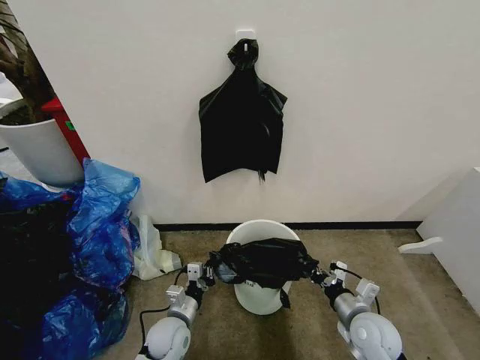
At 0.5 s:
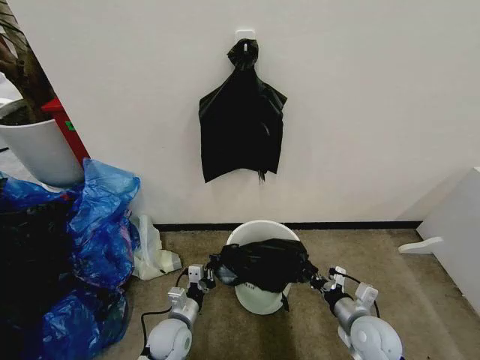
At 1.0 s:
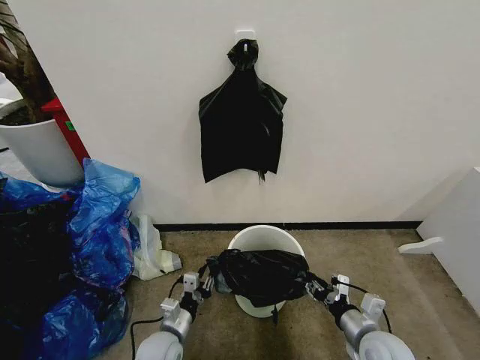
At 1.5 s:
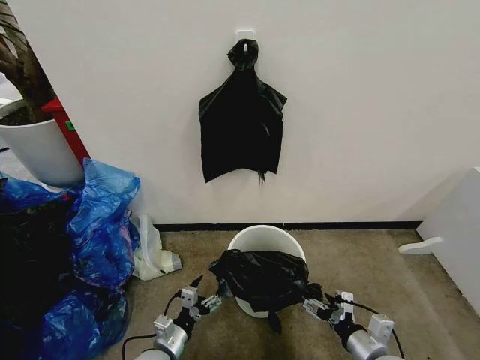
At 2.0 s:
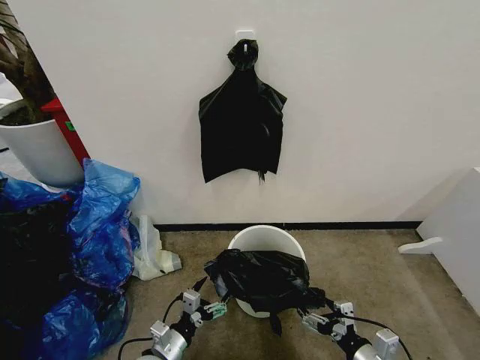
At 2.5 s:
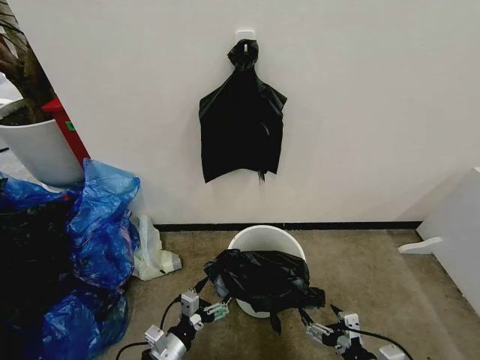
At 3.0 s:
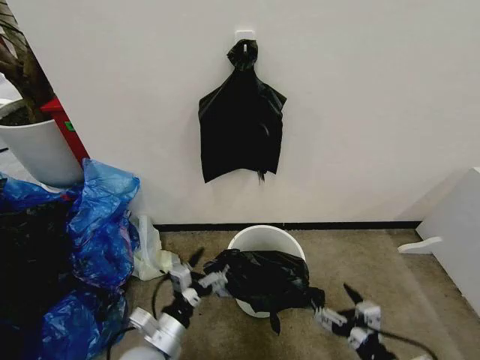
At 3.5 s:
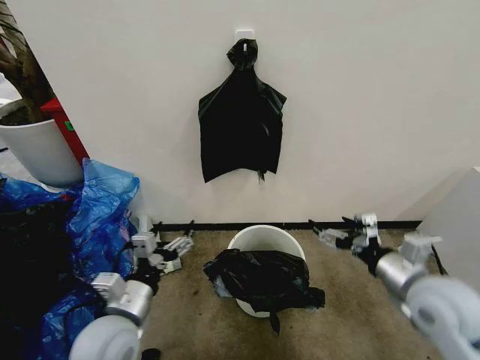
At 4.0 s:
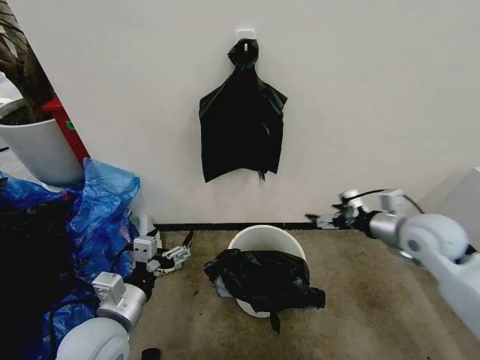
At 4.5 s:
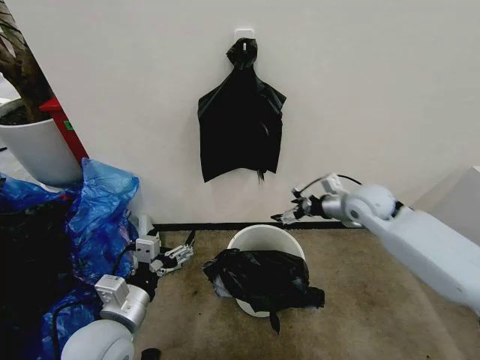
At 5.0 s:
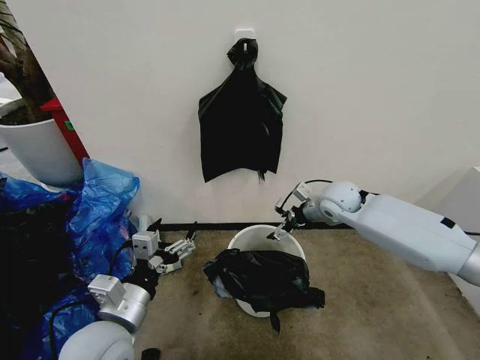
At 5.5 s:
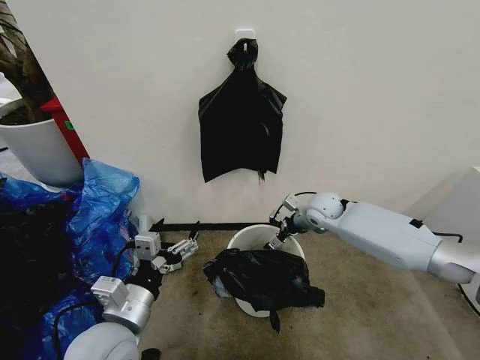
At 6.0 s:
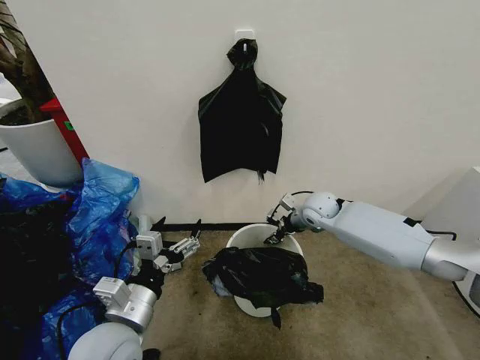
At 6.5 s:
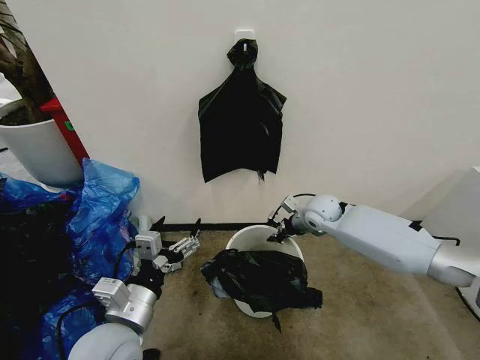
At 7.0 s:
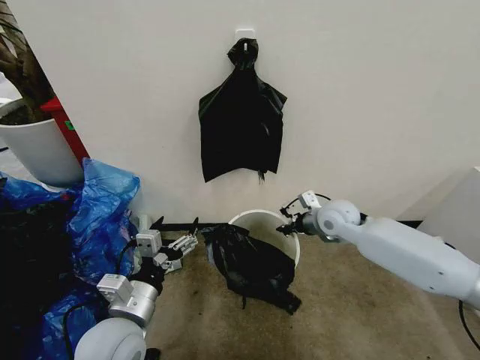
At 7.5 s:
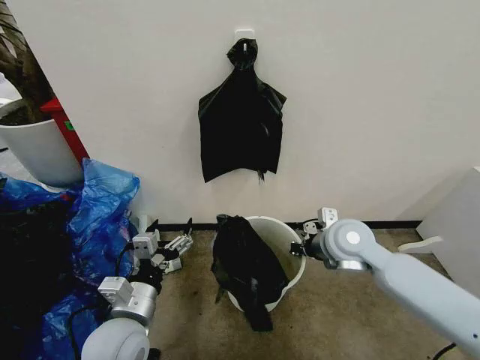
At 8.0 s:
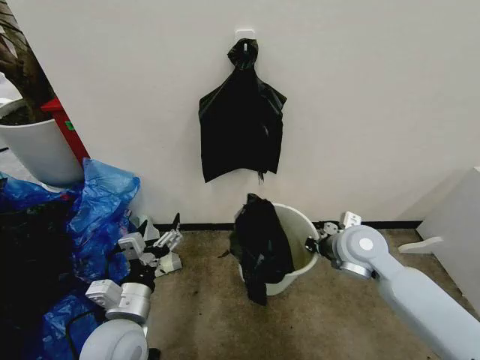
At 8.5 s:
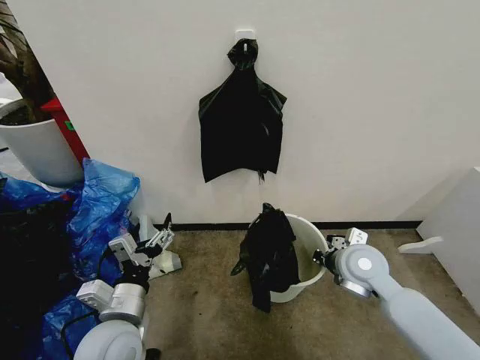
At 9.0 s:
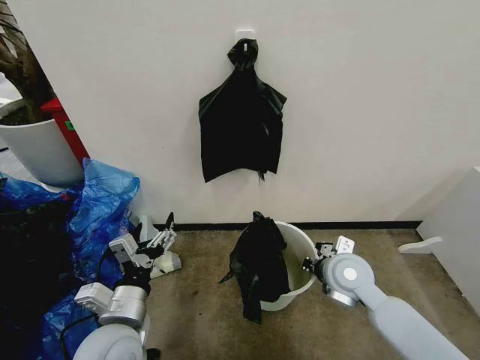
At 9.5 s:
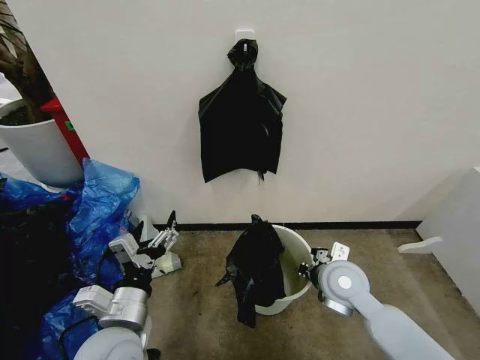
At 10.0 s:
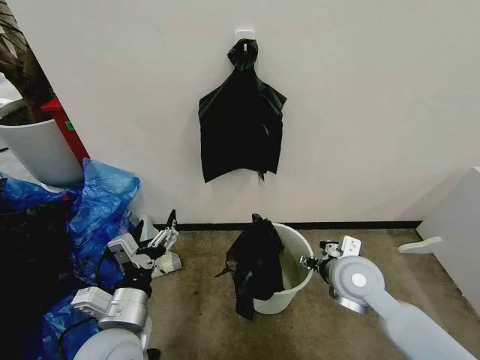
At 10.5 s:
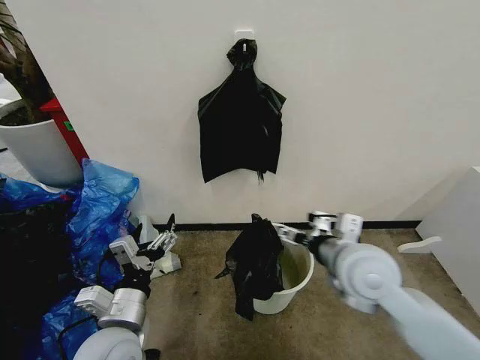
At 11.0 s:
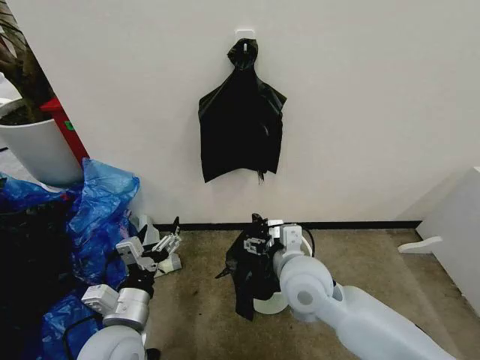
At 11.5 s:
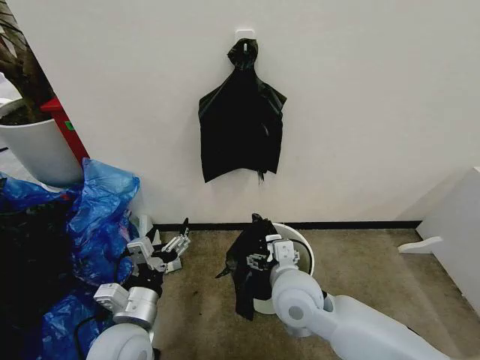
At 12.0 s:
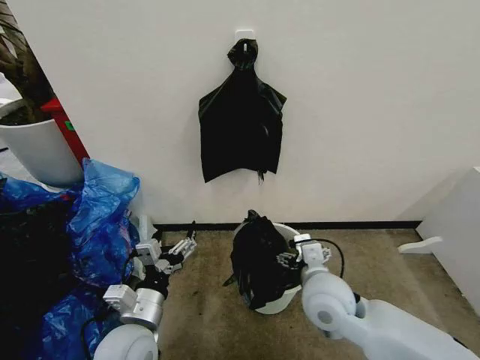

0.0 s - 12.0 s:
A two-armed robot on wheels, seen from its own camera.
Task of the whole recording: Place the garbage bag over the trash bin.
0.0 s - 2.0 s: Both grippers move backward, approximately 10 cm. The right gripper opens. Meanwhile the left gripper opens its fingers.
2.0 s - 4.0 s: The right gripper goes some 30 cm forward and upward, while the left gripper is displaced upward by approximately 20 cm.
4.0 s - 6.0 s: The right gripper moves forward, to the left and downward, roughly 25 cm, and closes its fingers.
6.0 s - 8.0 s: The right gripper shifts about 15 cm backward, and closes its fingers.
8.0 s - 10.0 s: The right gripper goes roughly 5 cm backward, and opens.
10.0 s - 12.0 s: The right gripper goes roughly 5 cm to the left.

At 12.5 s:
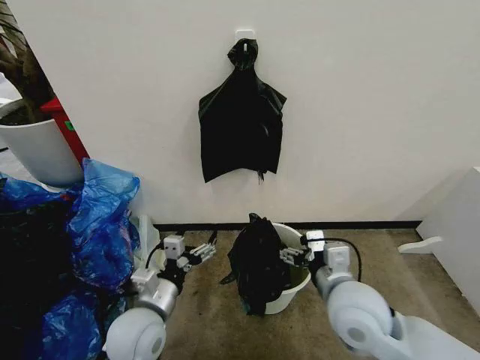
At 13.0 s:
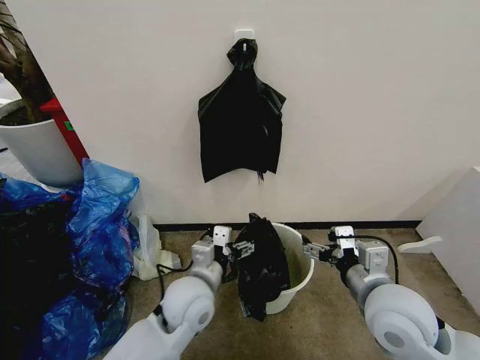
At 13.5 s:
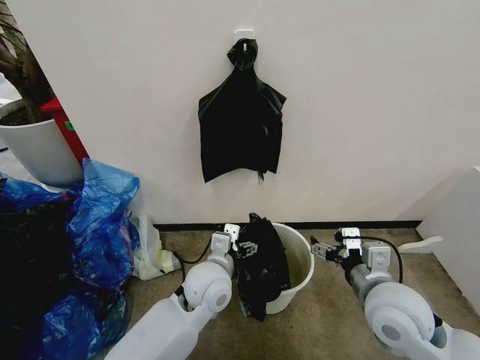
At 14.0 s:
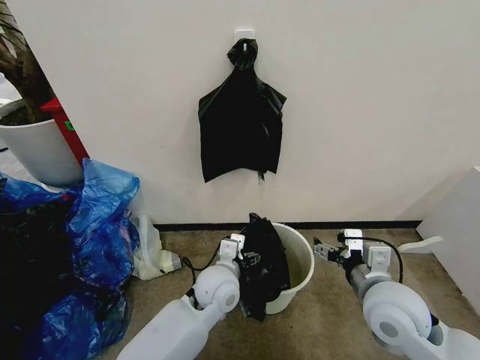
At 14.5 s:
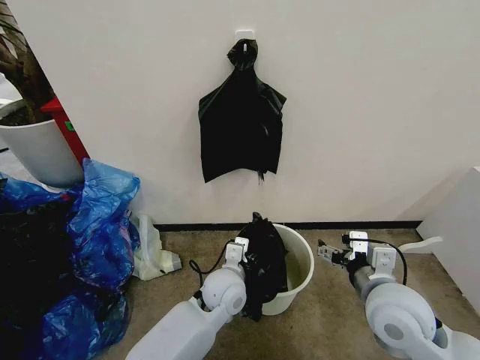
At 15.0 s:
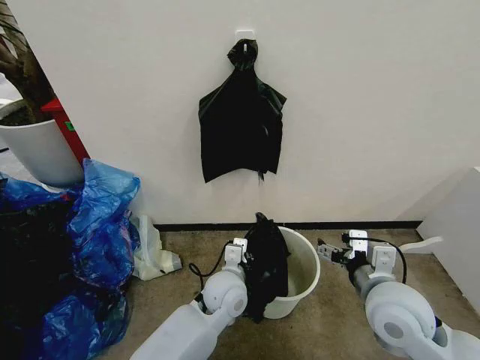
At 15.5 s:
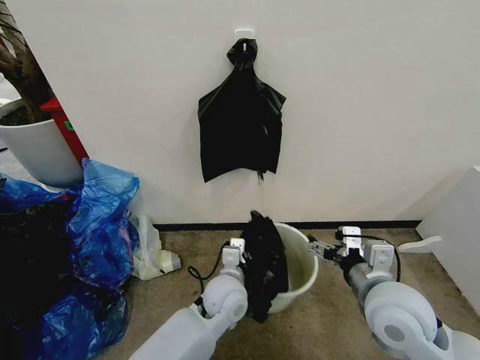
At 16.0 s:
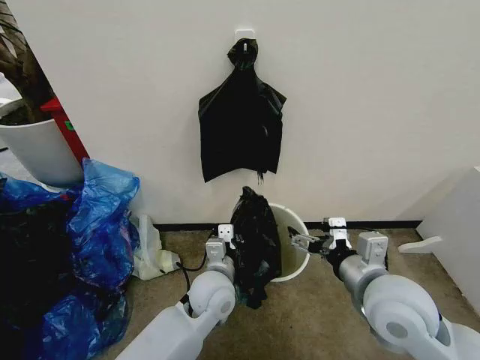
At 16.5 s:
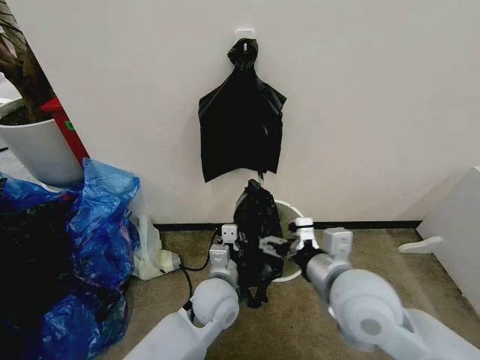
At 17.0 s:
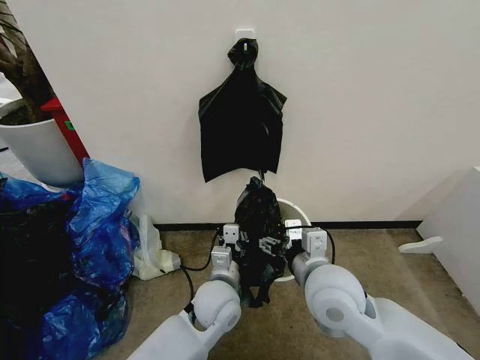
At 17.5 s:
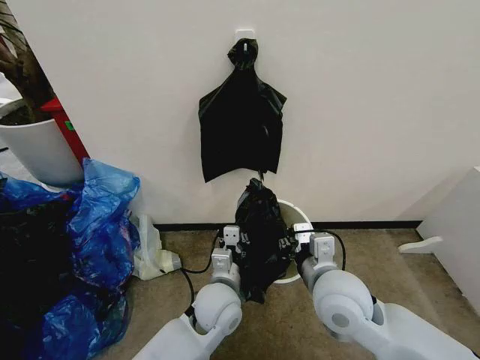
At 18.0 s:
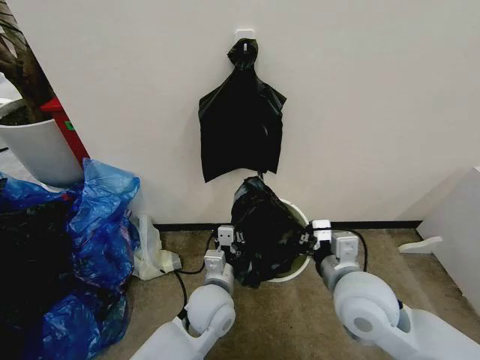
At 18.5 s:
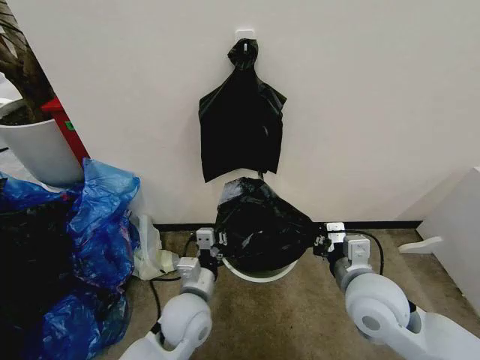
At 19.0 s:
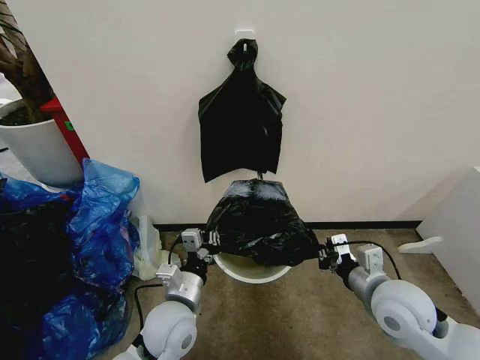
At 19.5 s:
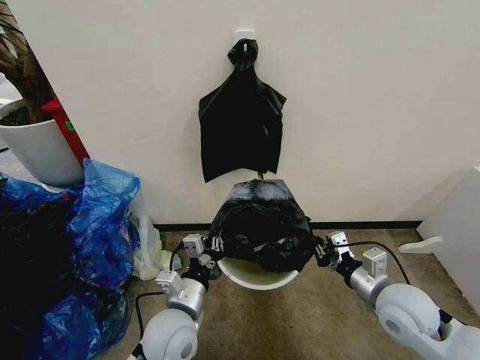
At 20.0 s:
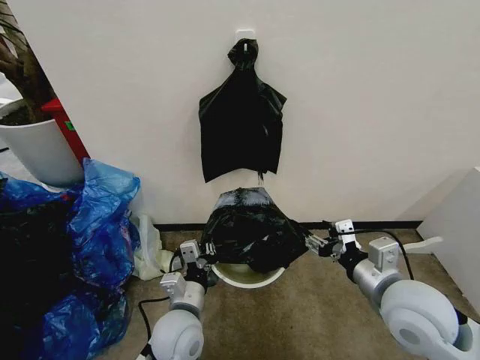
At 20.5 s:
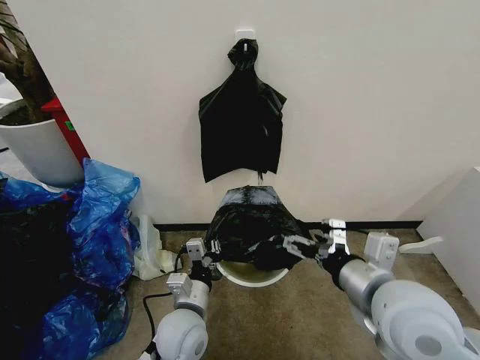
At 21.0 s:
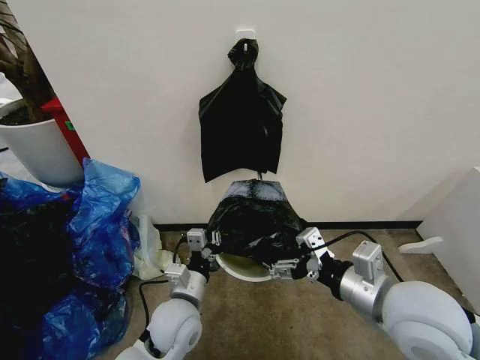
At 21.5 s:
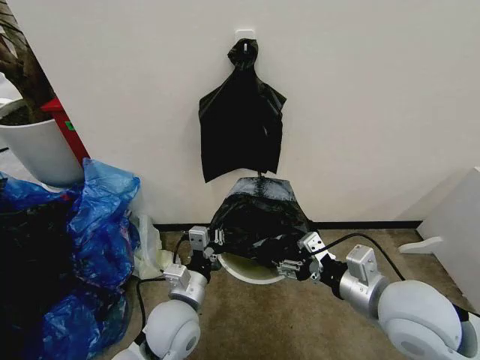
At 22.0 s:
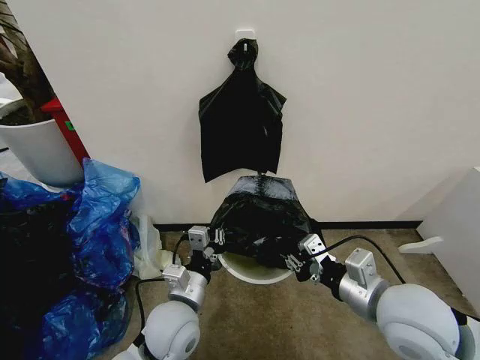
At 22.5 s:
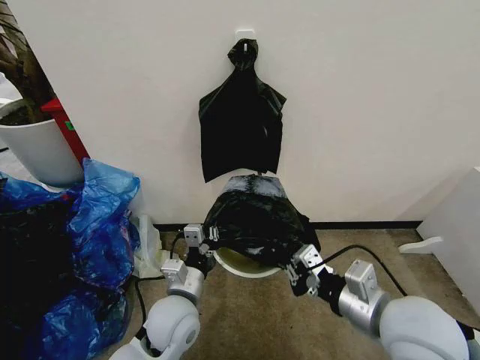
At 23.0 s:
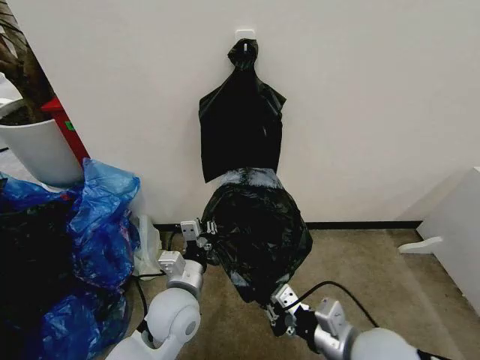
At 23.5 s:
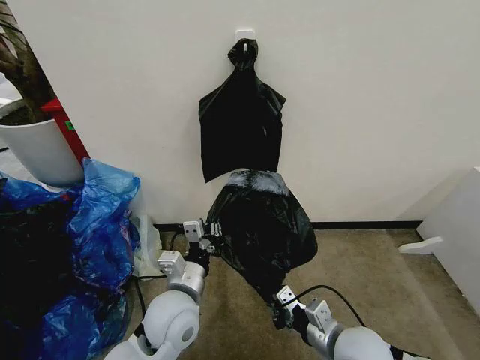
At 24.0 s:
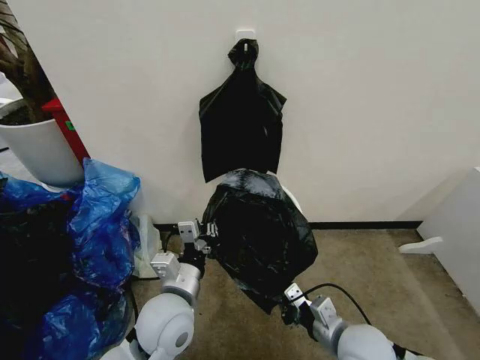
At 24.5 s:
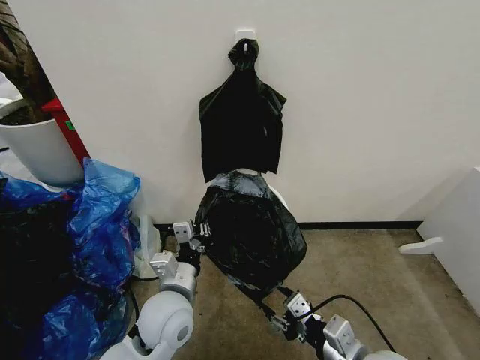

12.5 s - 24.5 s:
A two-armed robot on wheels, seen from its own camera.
Task of the whole recording: Place the garbage bag over the trash bin.
12.5 s - 14.5 s: The right gripper heads to the right, covering approximately 5 cm. Meanwhile the left gripper moves to the right and forward, roughly 20 cm.
14.5 s - 16.5 s: The left gripper closes its fingers. Meanwhile the right gripper moves to the left, about 10 cm.
16.5 s - 18.5 s: The right gripper is displaced downward by about 5 cm, and closes its fingers; the left gripper heads to the left, covering approximately 5 cm.
18.5 s - 20.5 s: The right gripper goes some 5 cm upward, and opens up.
20.5 s - 22.5 s: The right gripper closes up.
22.5 s - 24.5 s: The right gripper goes roughly 10 cm downward and backward, and opens.

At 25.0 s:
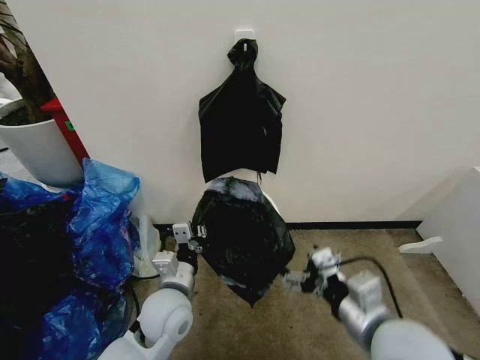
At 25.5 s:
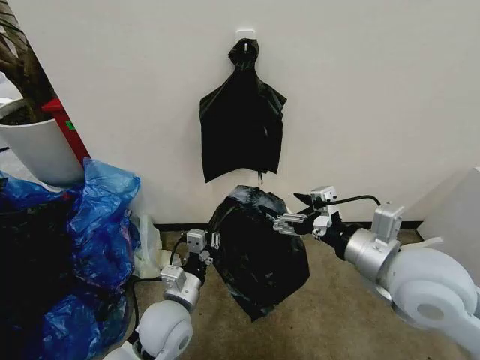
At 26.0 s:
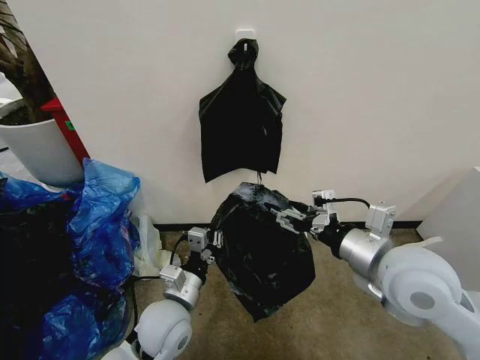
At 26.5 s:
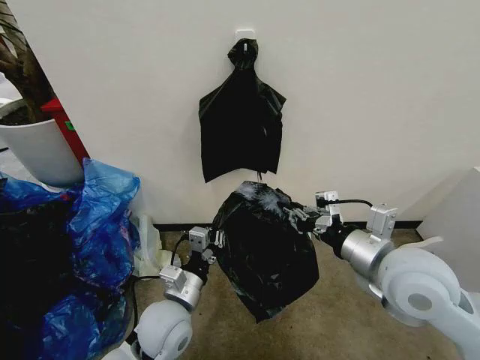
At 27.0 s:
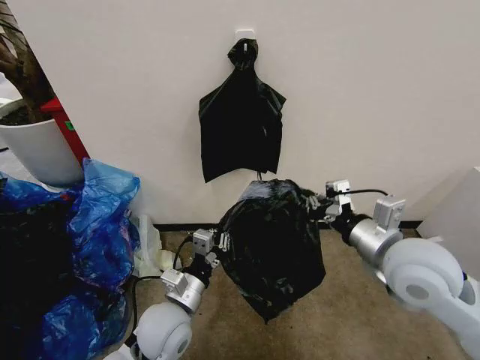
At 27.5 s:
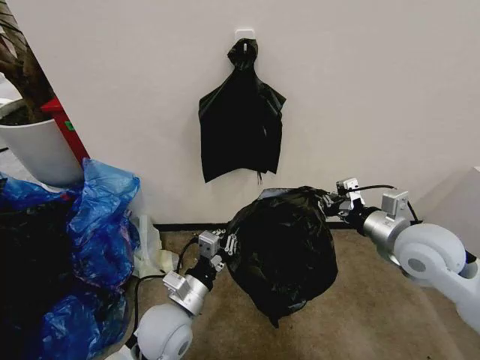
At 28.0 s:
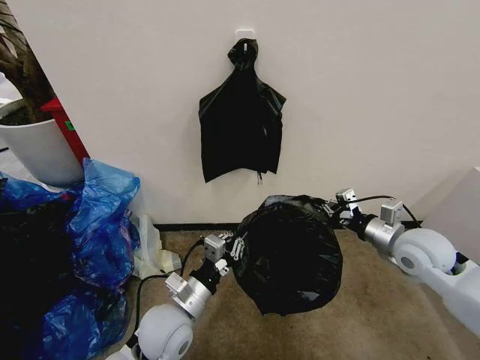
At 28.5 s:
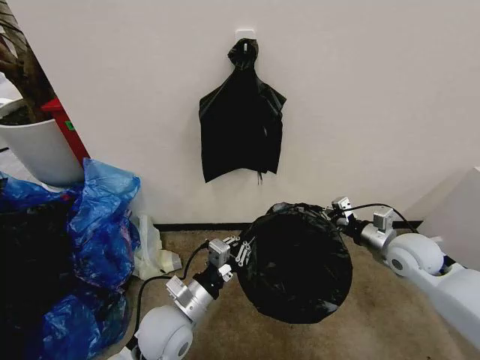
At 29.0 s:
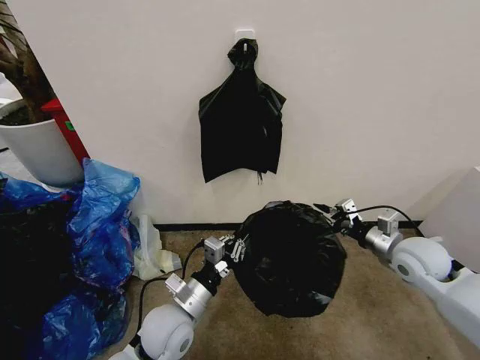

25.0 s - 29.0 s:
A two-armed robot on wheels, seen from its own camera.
Task of the whole recording: Place the garbage bag over the trash bin.
25.0 s - 27.0 s: The right gripper goes approximately 10 cm forward and upward, and closes its fingers.
27.0 s - 29.0 s: The right gripper is displaced downward, to the right and forward by roughly 20 cm.
